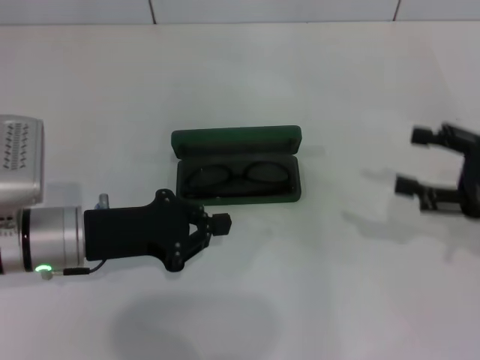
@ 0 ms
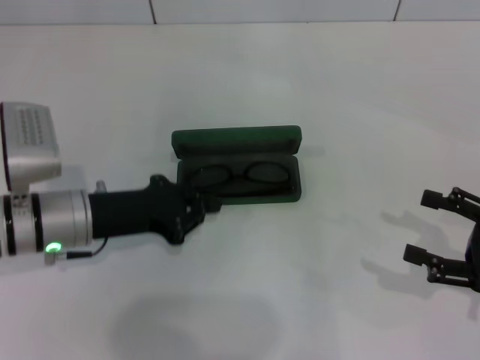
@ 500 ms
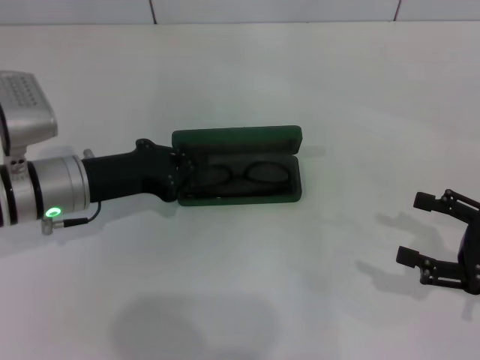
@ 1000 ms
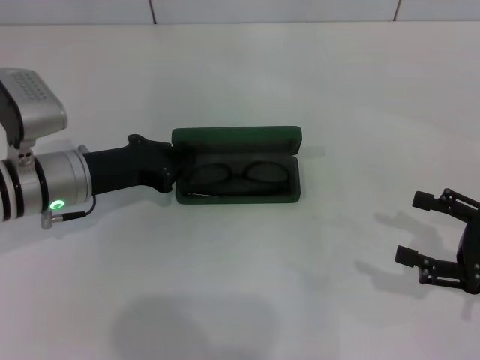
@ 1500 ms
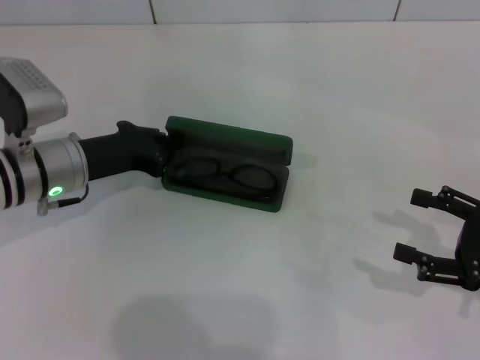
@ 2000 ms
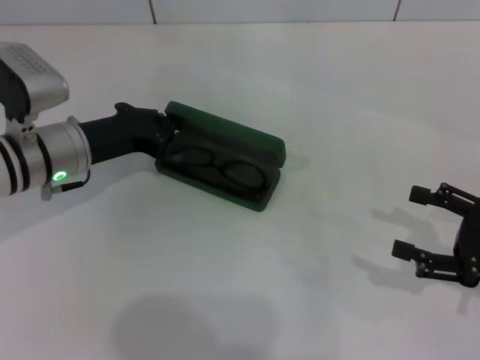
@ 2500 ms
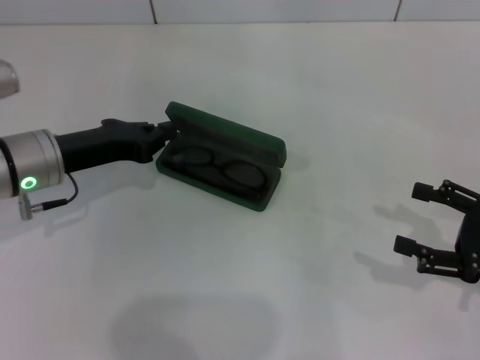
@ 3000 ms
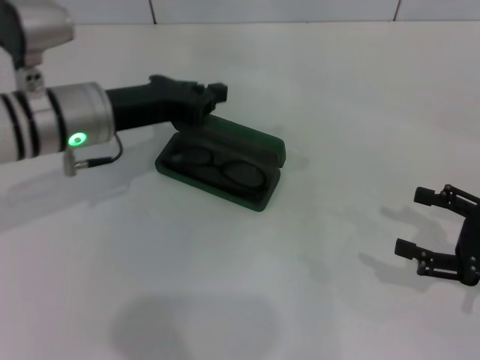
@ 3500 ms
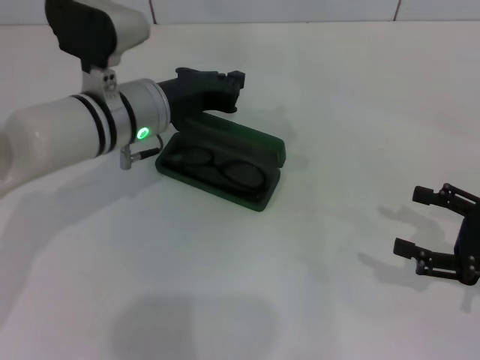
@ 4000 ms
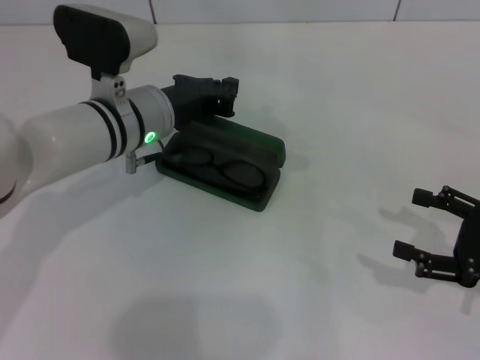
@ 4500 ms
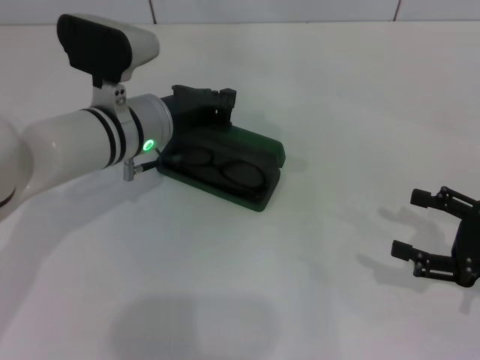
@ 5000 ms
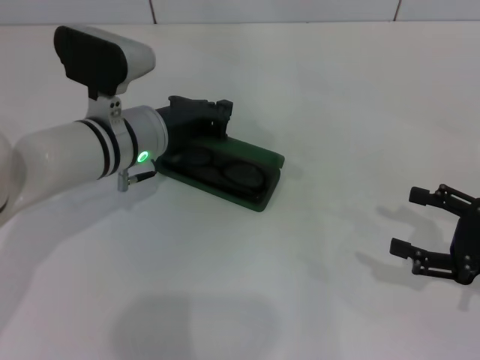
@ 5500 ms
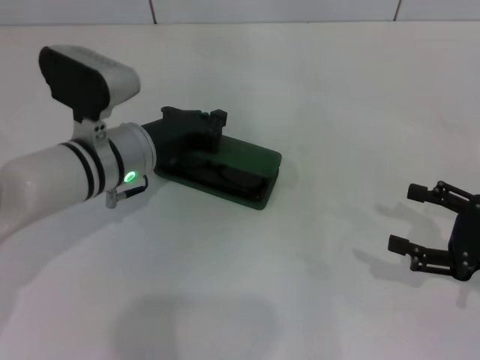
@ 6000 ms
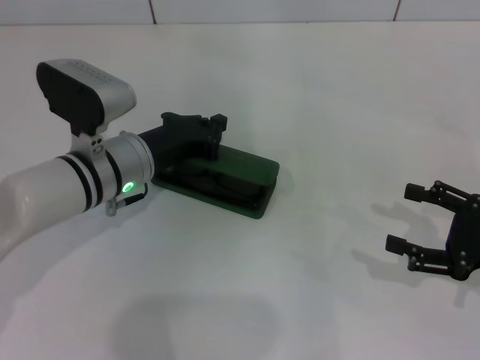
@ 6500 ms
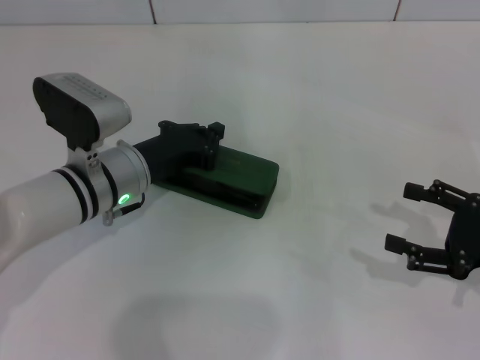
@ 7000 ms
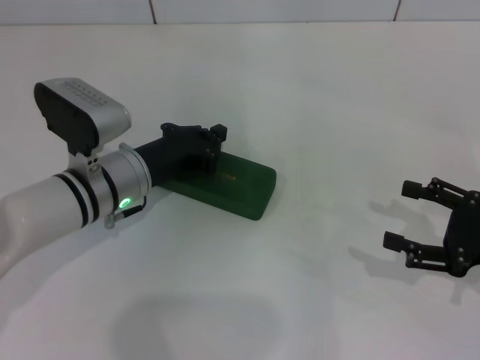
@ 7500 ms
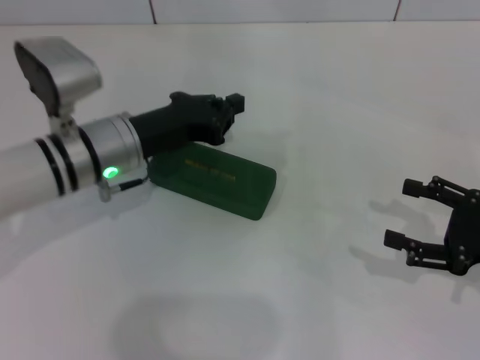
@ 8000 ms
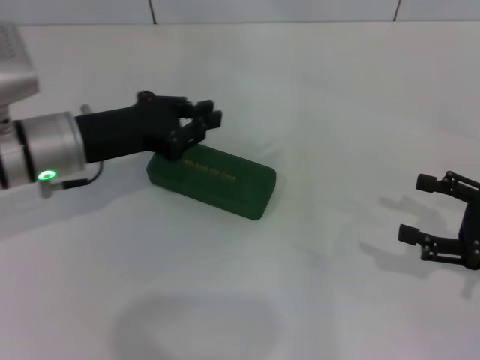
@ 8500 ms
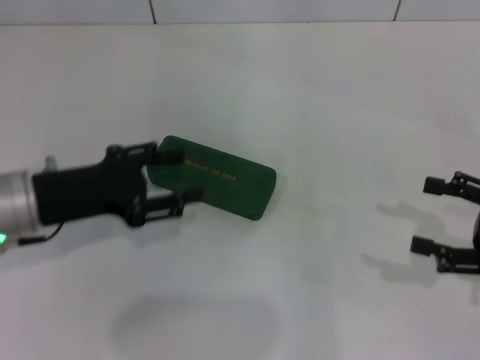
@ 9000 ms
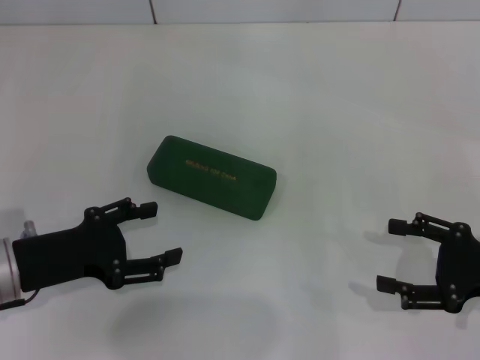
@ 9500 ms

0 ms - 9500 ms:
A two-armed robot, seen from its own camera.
Step, 0 ms - 7500 ms: Close the glasses case with your left hand.
0 ms - 2000 ms: The right gripper moves backward, about 5 cm; the left gripper goes approximately 5 cm forward.
2000 ms - 4000 ms: The left gripper is displaced to the right and upward by some 10 cm.
4000 ms - 5500 ms: The grippers make only small movements.
5500 ms - 7500 ms: The left gripper moves approximately 5 cm.
7500 ms - 9500 ms: The left gripper heads to the left and backward, covering approximately 15 cm, and opens.
